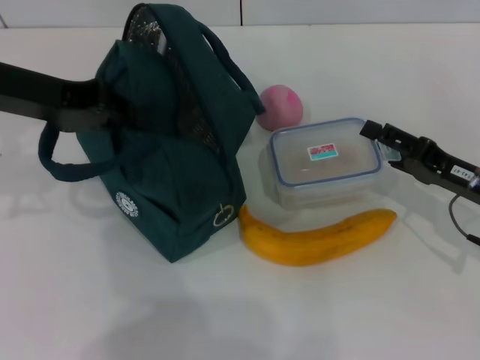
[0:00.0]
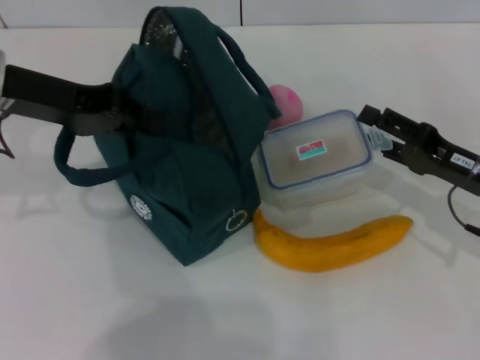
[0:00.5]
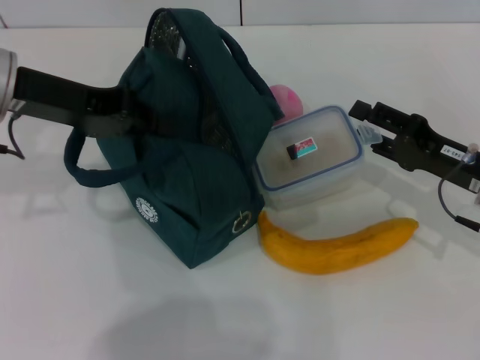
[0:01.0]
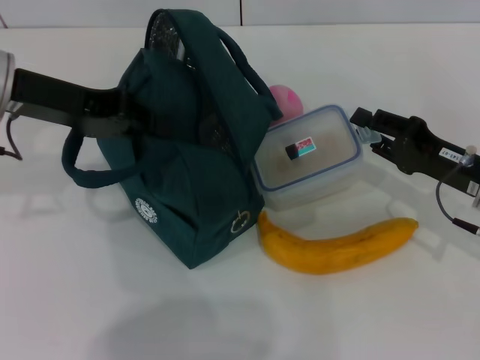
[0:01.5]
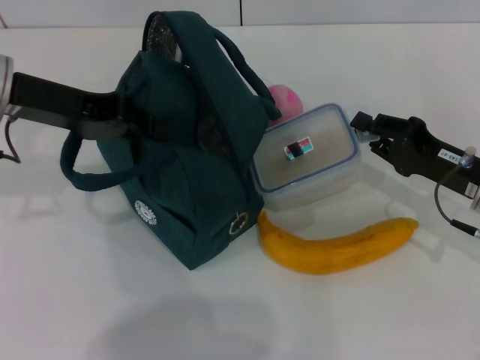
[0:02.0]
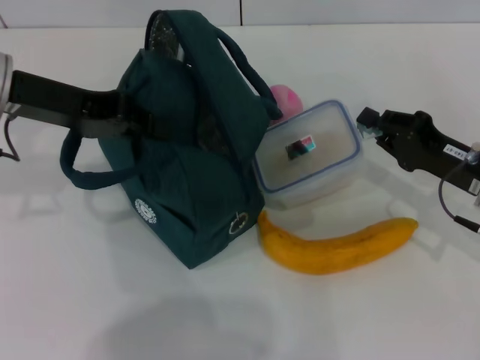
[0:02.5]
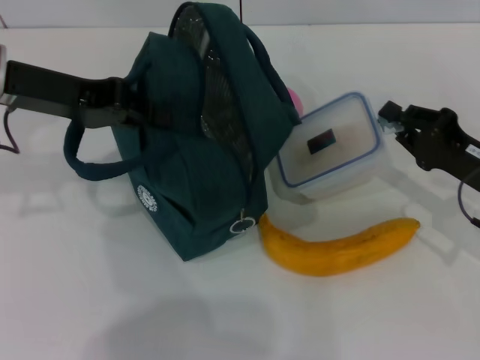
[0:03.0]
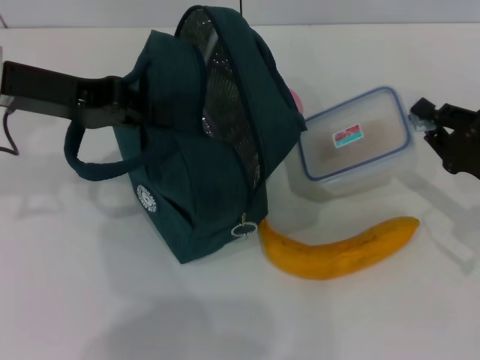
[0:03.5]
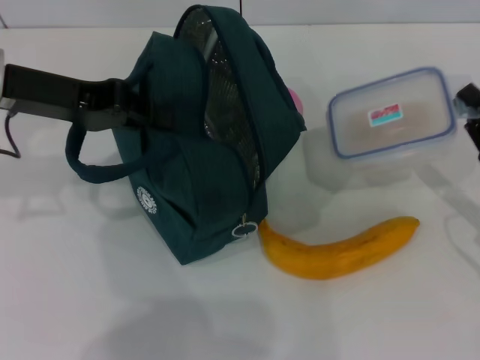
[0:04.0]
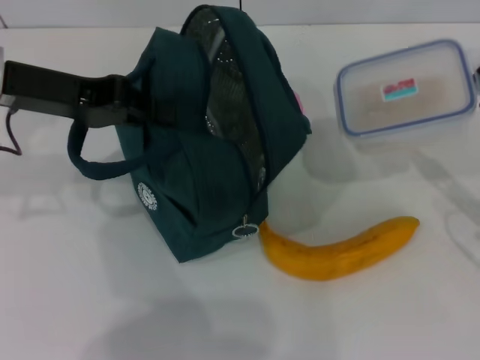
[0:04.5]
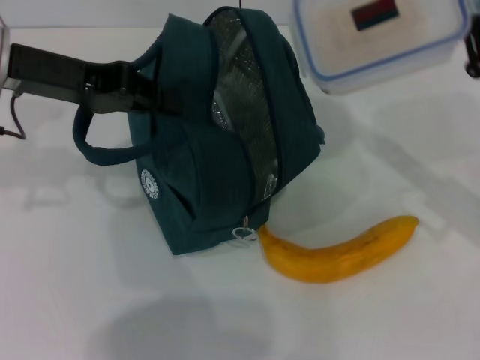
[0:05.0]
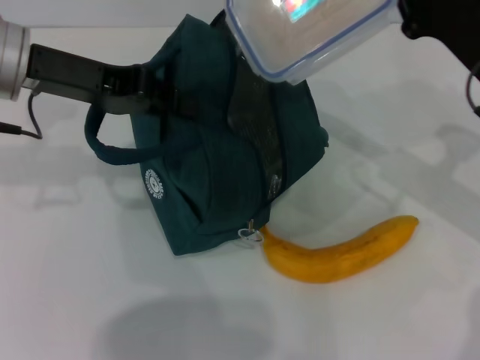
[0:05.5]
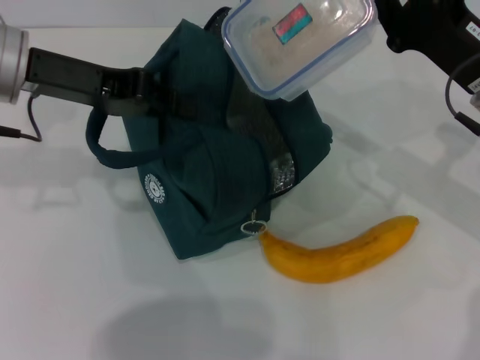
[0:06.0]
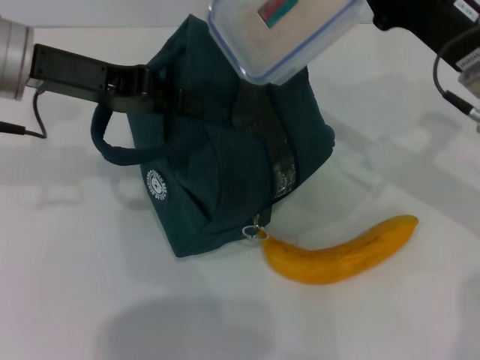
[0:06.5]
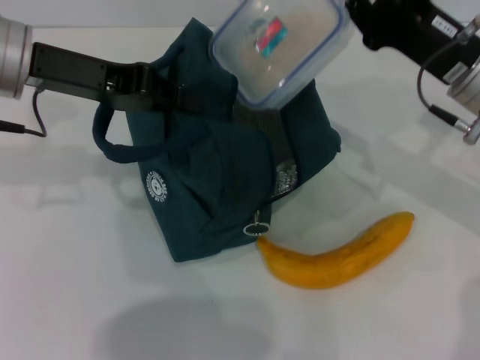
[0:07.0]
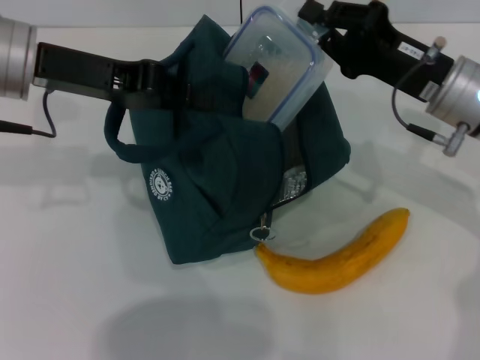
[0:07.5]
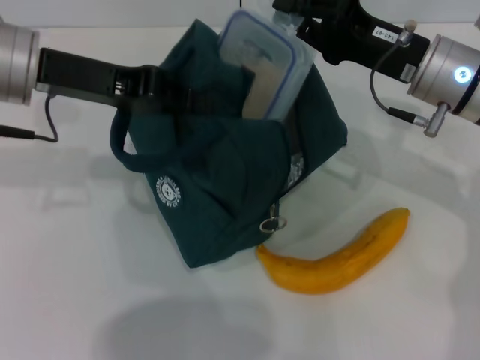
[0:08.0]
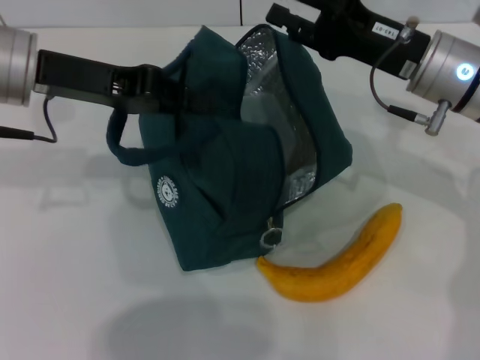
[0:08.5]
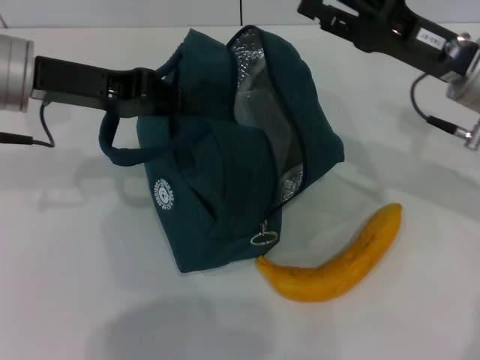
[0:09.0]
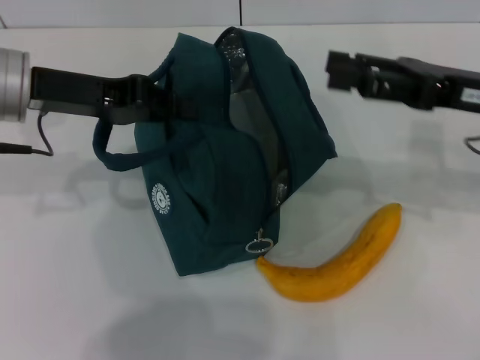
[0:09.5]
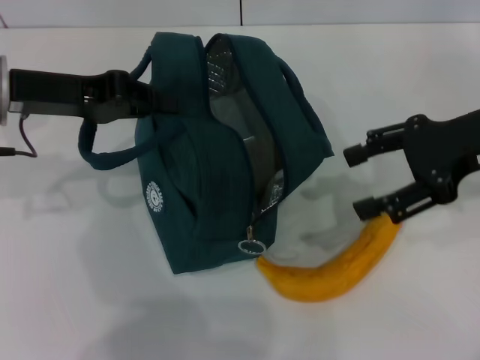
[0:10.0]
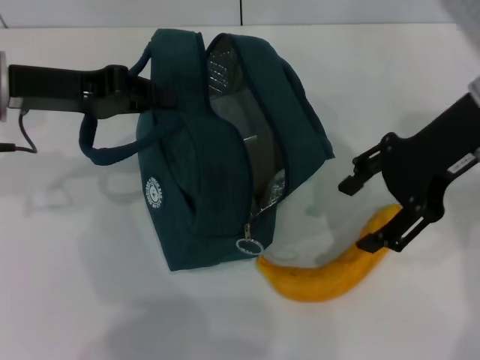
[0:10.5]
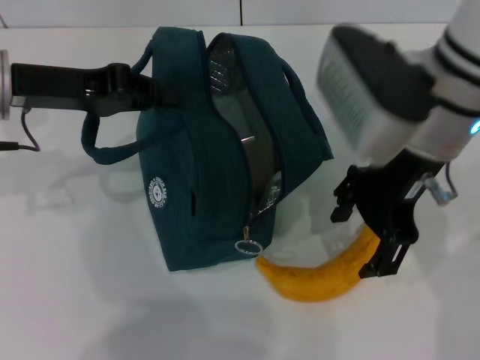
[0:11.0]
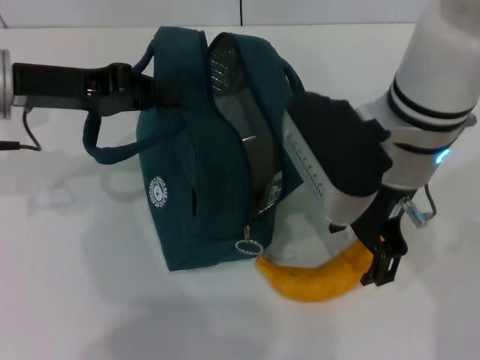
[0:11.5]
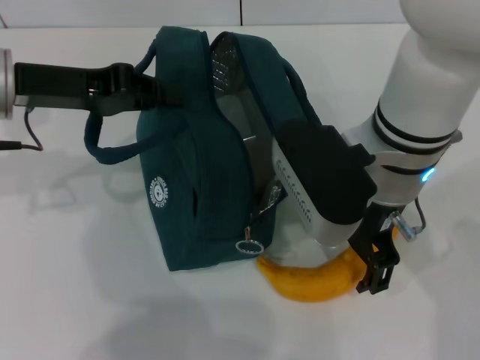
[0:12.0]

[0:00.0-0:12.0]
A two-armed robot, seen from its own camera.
Step, 0.0 to 2.5 s: Pick up the lunch box with your right hand.
Step, 3.0 to 8.5 s: Place the lunch box into the lunch bag with your right hand.
0.0 to 2.0 s: The right gripper closes.
2.0 to 4.0 s: The right gripper heads to the right, covering roughly 5 cm.
4.0 to 6.0 s: The right gripper heads to the left, forward and upward, covering some 15 cm.
6.0 to 8.0 s: The right gripper moves some 5 cm.
8.0 to 10.0 s: The right gripper heads to the right and upward, covering roughly 10 cm, and opens its fingers.
10.0 to 12.0 s: The right gripper heads to the left, covering approximately 15 cm.

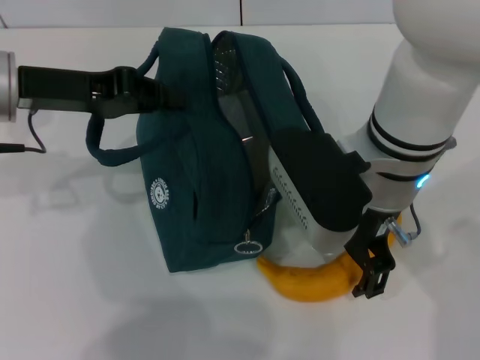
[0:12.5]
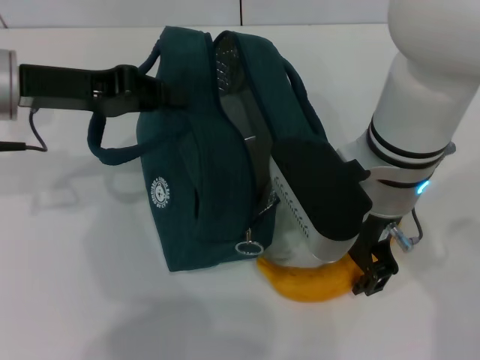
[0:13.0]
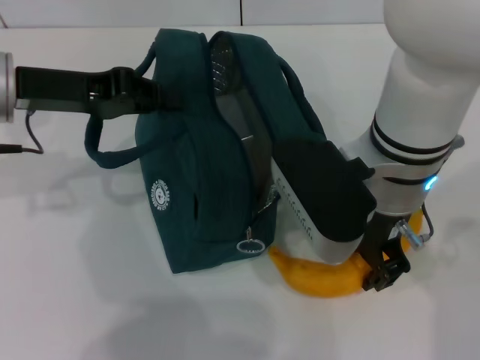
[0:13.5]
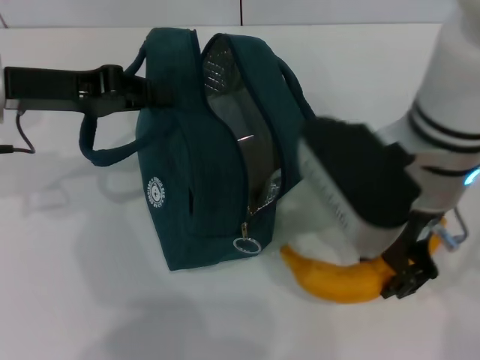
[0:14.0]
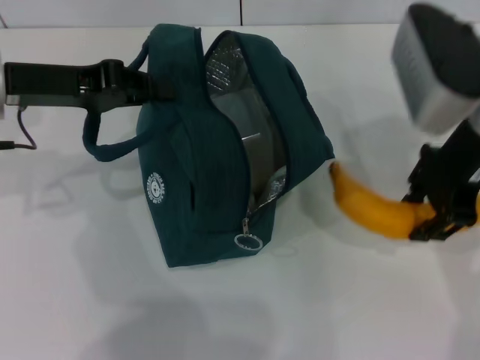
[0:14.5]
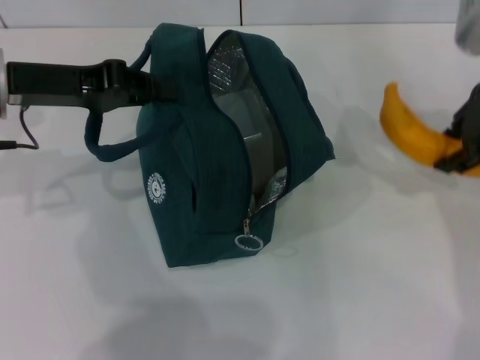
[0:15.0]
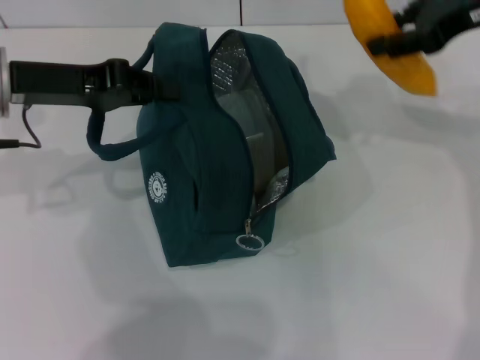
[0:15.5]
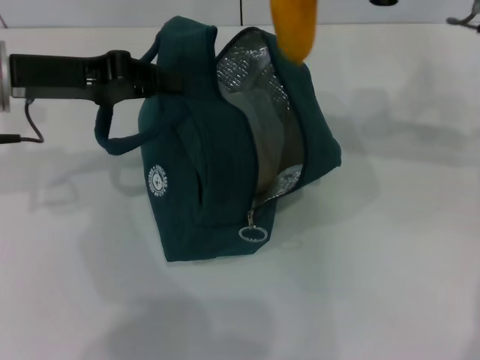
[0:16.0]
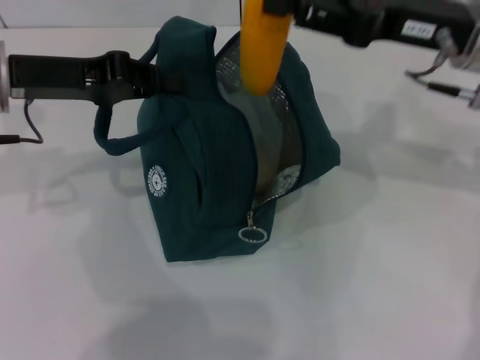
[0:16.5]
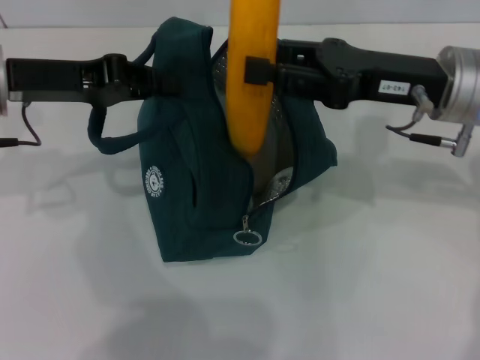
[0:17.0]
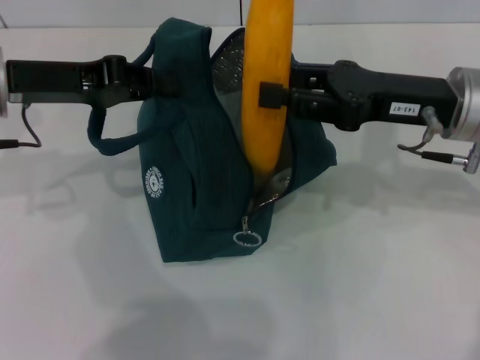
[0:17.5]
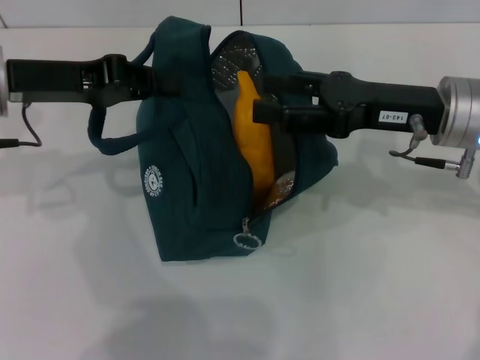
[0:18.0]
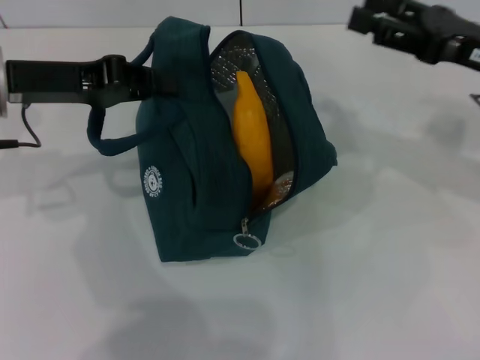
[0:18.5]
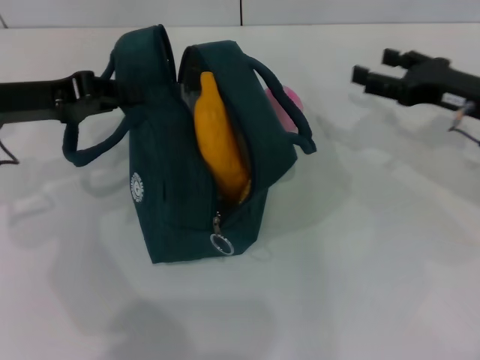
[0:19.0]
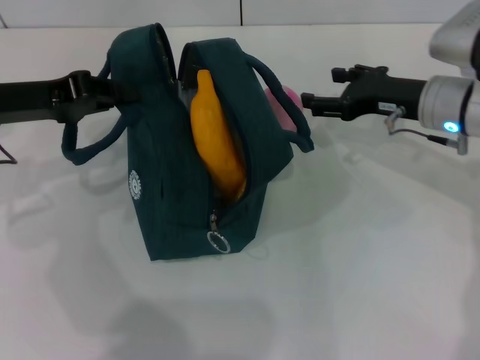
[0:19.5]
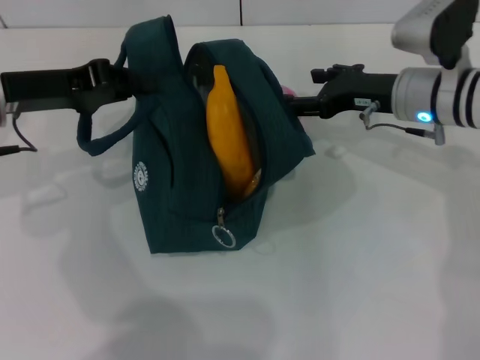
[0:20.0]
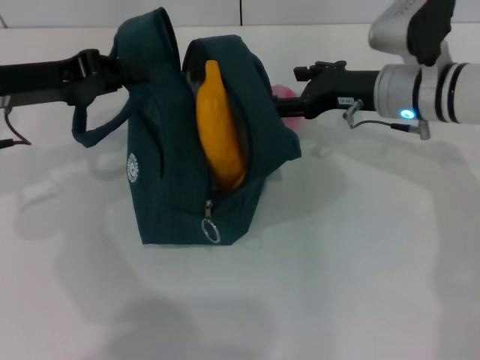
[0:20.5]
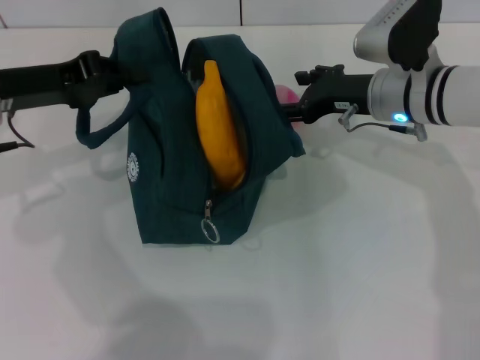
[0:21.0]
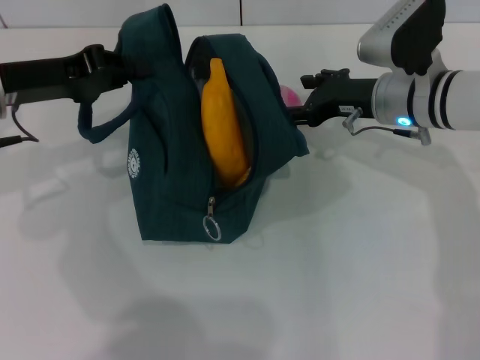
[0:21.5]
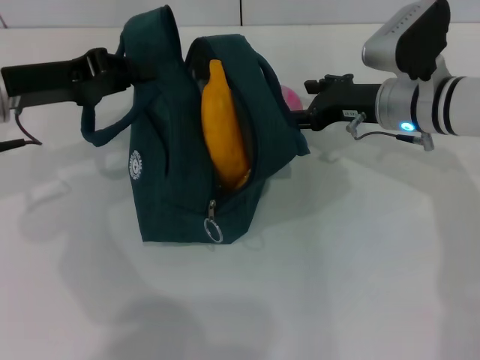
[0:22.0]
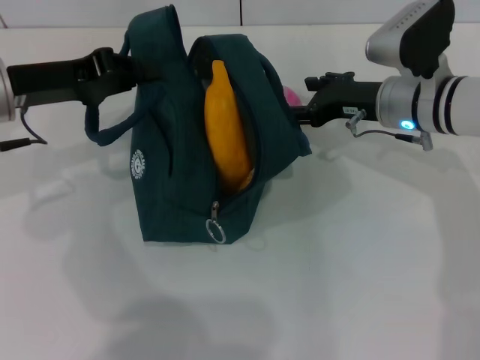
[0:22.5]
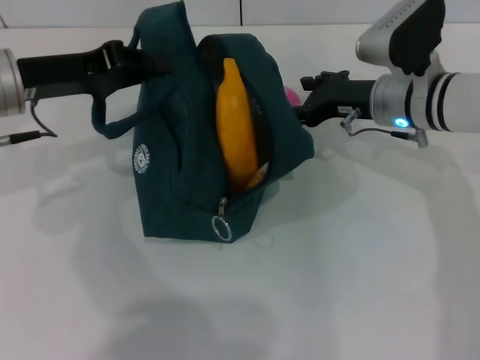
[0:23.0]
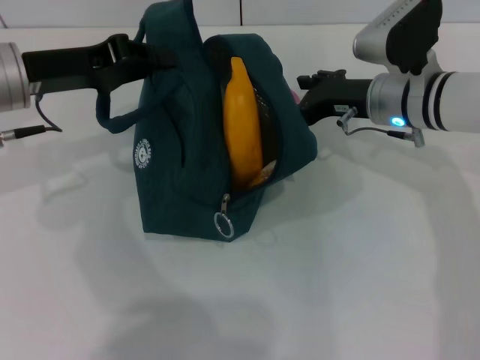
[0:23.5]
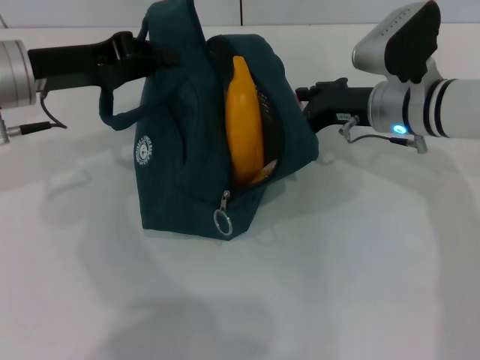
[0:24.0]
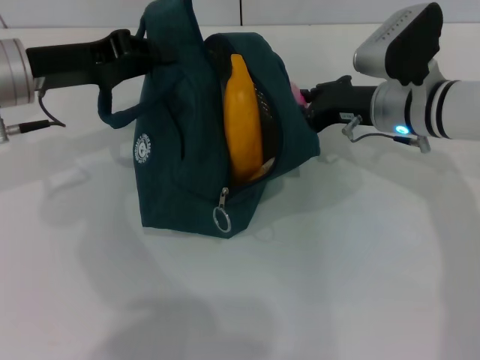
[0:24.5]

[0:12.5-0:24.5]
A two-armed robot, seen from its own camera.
Step, 13.5 to 18.0 s: Put the banana into the lunch bag with your right hand.
12.5 to 14.5 s: The right gripper heads to the right and upward, covering some 10 cm, and closes up.
16.5 to 18.5 s: The right gripper heads to the right, covering some 5 cm, and opens up.
18.5 to 20.5 s: The right gripper goes approximately 15 cm to the left, forward and downward.
20.5 to 22.5 s: The grippers move only a little.
22.5 to 24.5 s: The right gripper closes up.

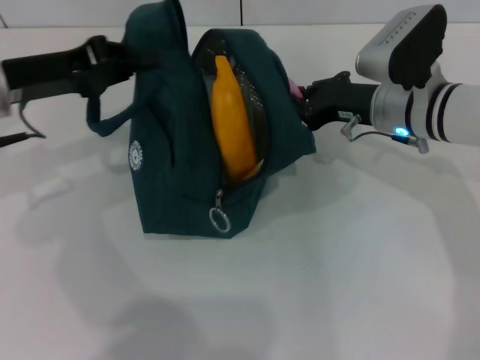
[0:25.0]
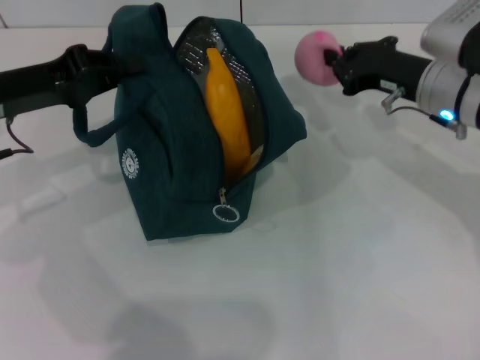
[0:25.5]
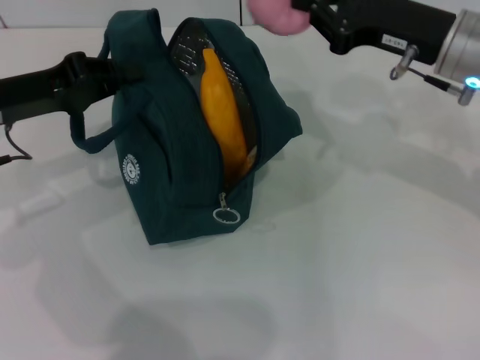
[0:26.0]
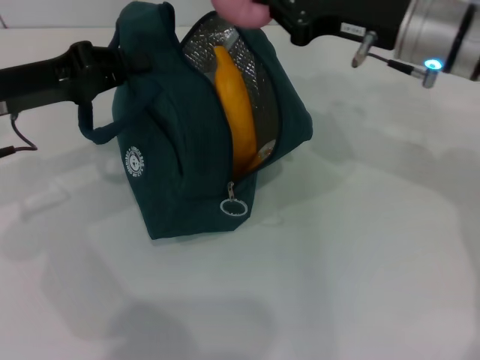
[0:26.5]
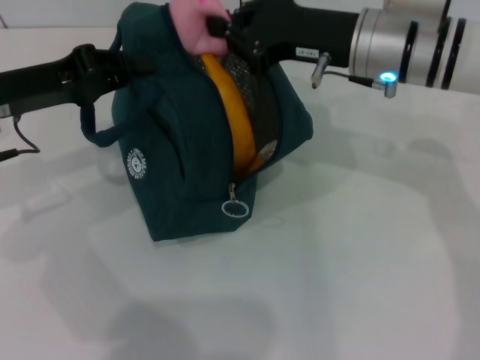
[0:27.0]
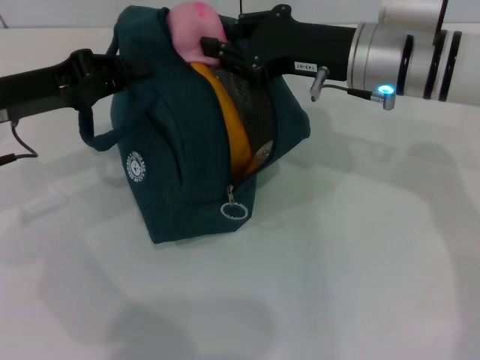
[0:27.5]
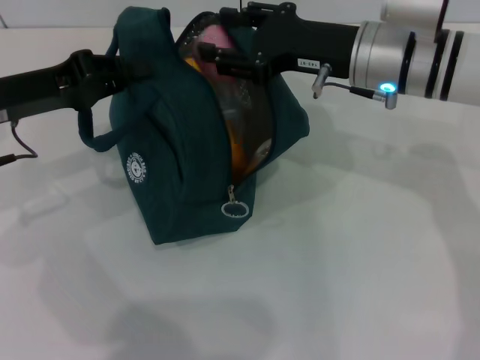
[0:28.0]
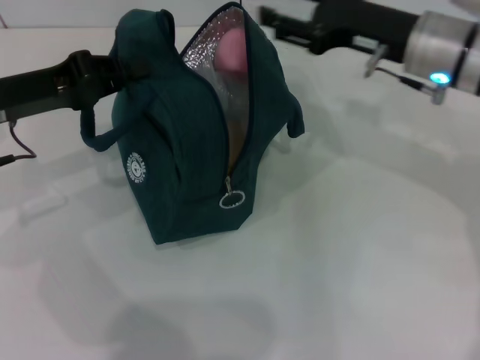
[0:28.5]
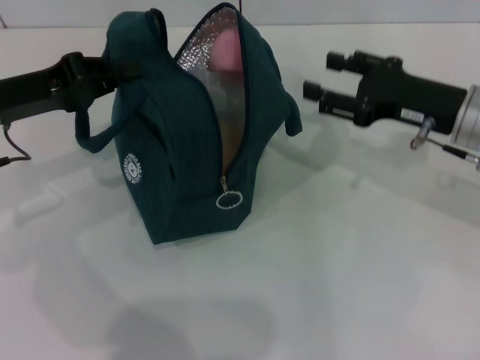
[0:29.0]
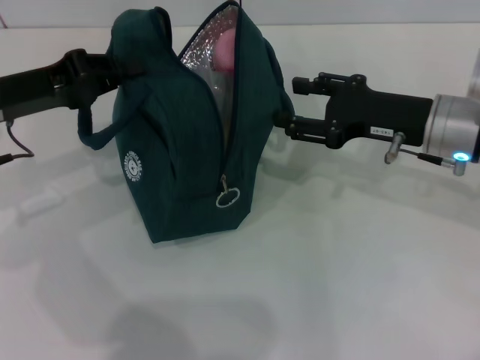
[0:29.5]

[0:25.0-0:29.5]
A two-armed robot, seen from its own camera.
25.0 to 27.0 s: The right gripper shifts some 10 cm upward.
27.0 to 29.5 s: The right gripper moves to the right and downward, approximately 10 cm, and opens.
